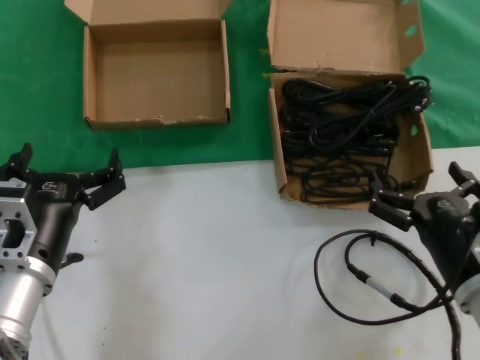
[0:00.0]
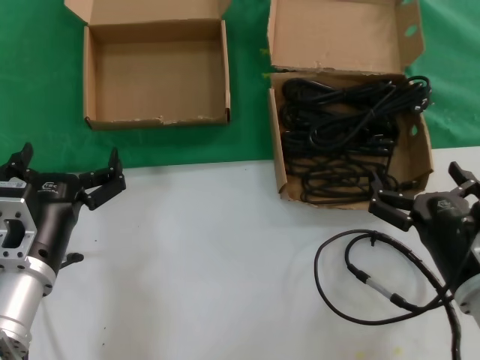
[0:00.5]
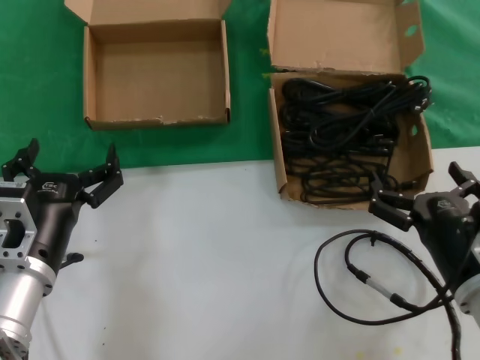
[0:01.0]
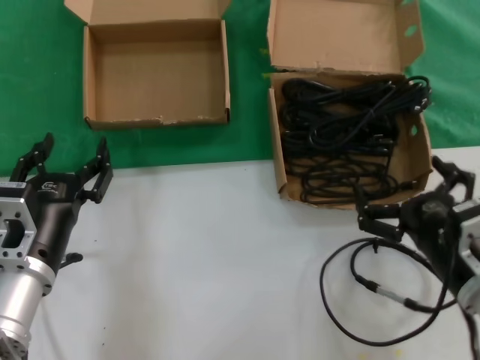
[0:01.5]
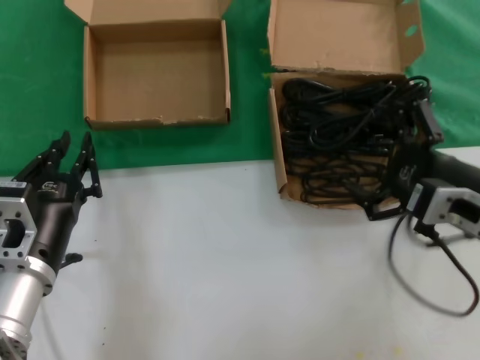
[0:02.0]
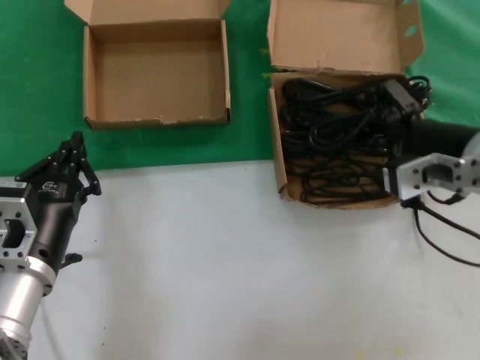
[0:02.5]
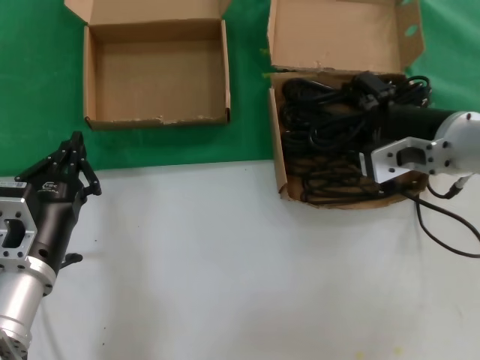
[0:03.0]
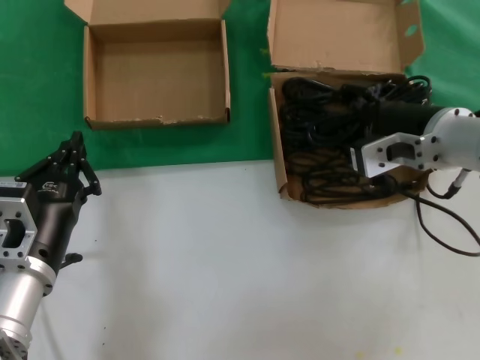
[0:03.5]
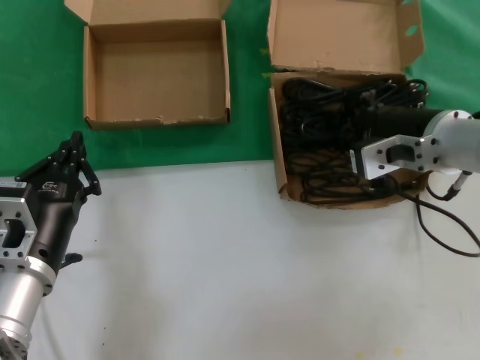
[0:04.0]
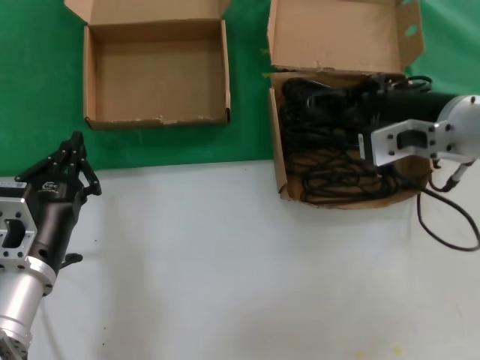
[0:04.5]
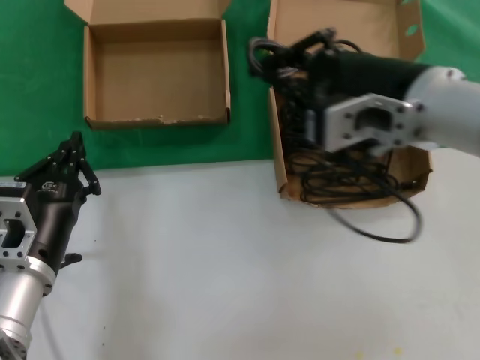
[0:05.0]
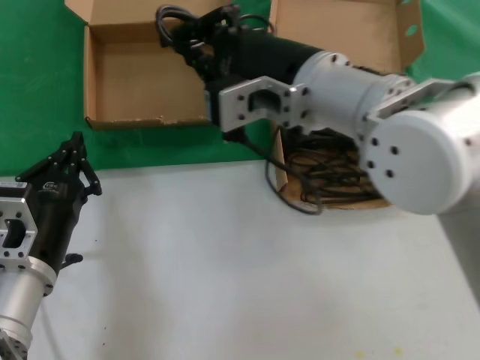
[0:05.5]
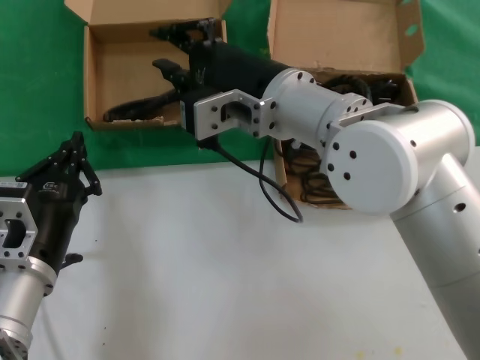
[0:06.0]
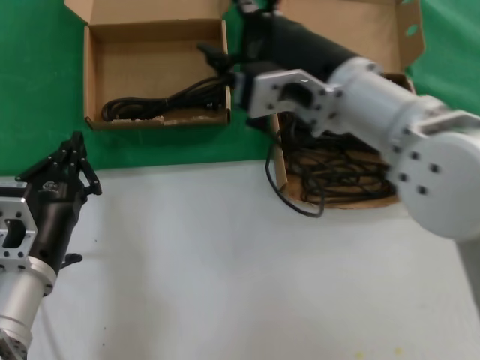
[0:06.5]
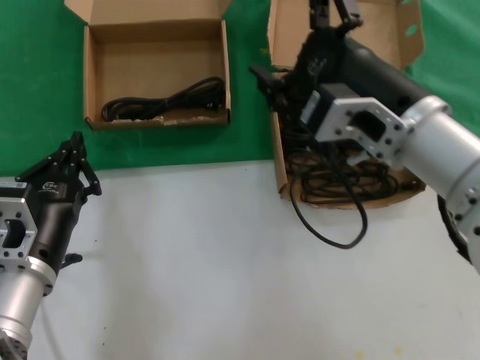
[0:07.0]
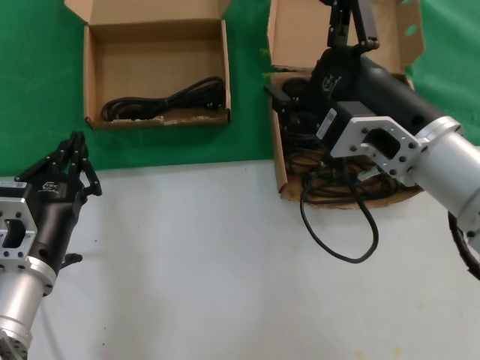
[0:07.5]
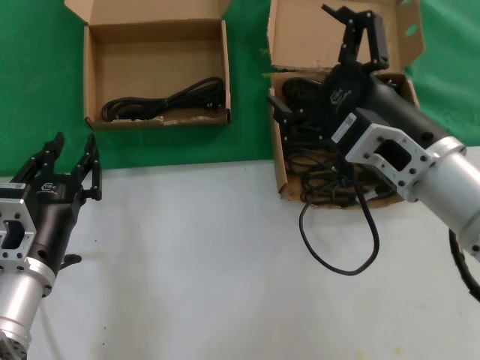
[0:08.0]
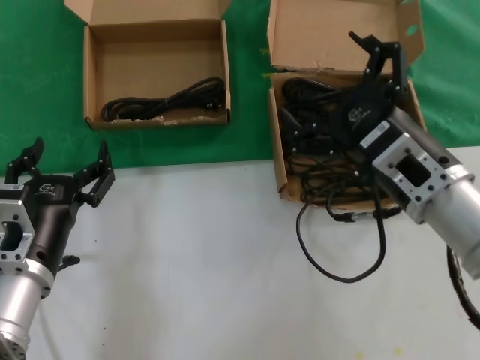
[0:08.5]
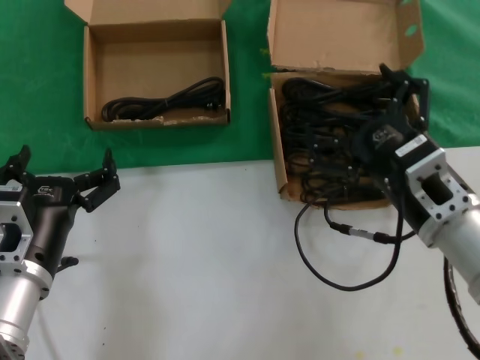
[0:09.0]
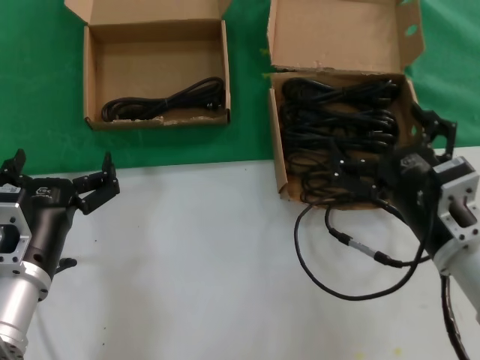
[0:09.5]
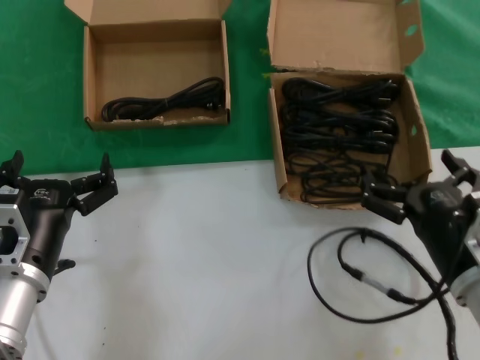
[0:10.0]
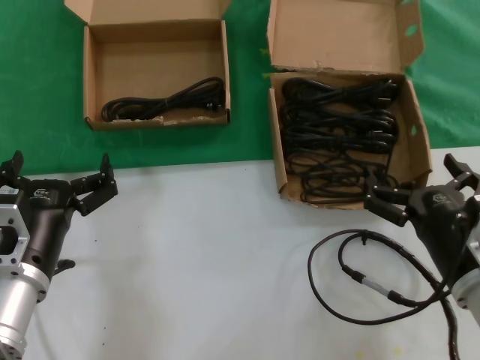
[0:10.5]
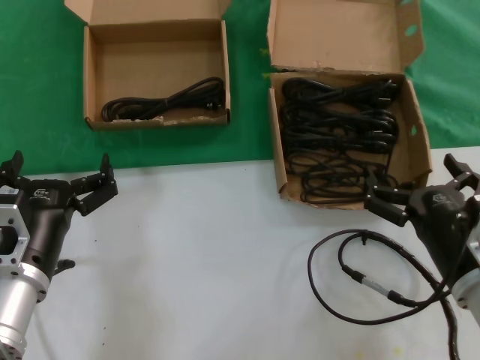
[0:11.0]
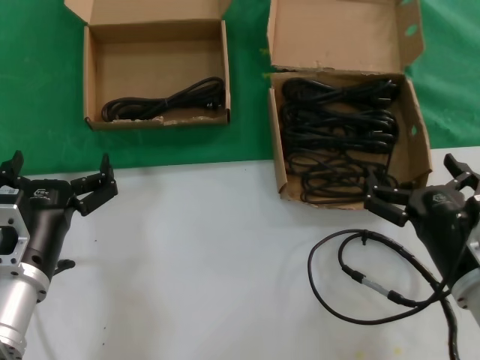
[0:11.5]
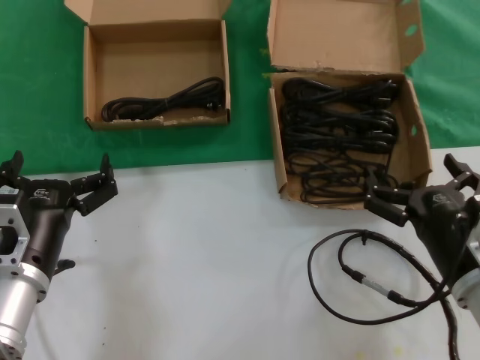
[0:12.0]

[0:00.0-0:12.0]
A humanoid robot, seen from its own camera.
Task of the whole recording: take the parts from the box containing them and put them into an empty box.
Step, 0:00.0 to 0:03.5: Grasp the data cable.
Step, 0:04.0 to 0:05.5: Place the data cable in the another box.
0:00.0 to 0:02.0: The right hand travels upward by roughly 10 cm.
0:02.0 to 0:04.0: The right hand travels forward, upward and to the left by approximately 10 cm.
0:04.0 to 0:06.0: The right hand heads to the left, covering about 15 cm.
0:06.0 to 0:08.0: The right hand shifts roughly 15 cm to the right, backward and downward.
0:08.0 to 0:10.0: The right hand shifts about 15 cm downward and to the right.
0:10.0 to 0:12.0: Neither hand changes place.

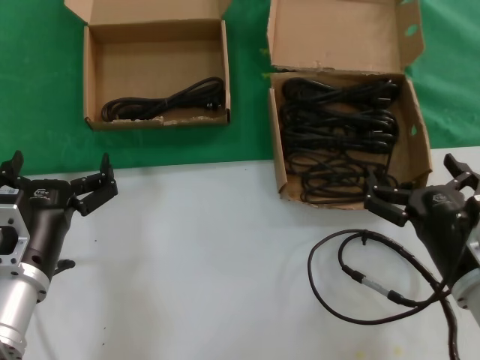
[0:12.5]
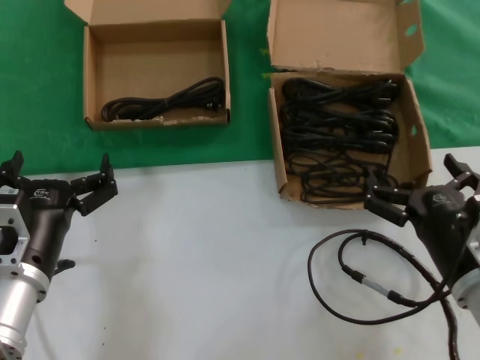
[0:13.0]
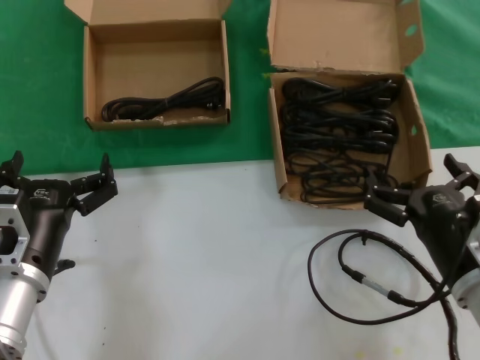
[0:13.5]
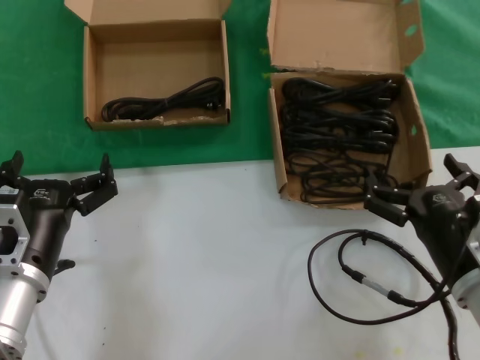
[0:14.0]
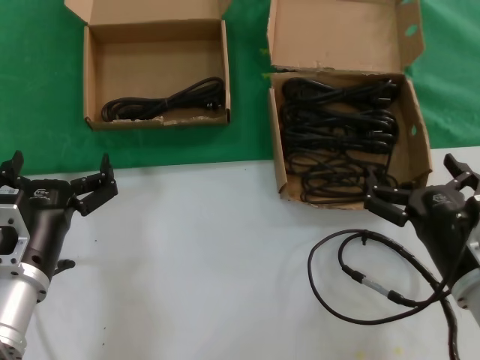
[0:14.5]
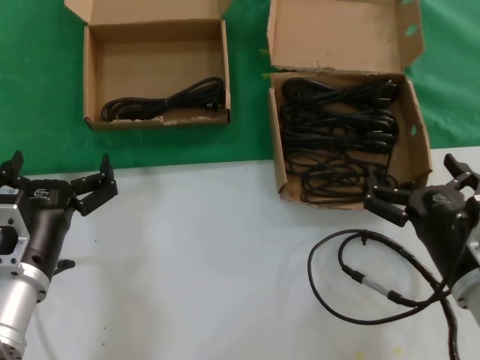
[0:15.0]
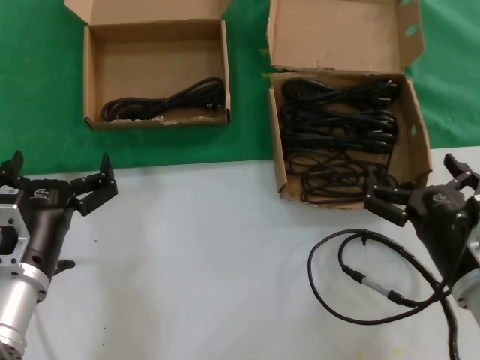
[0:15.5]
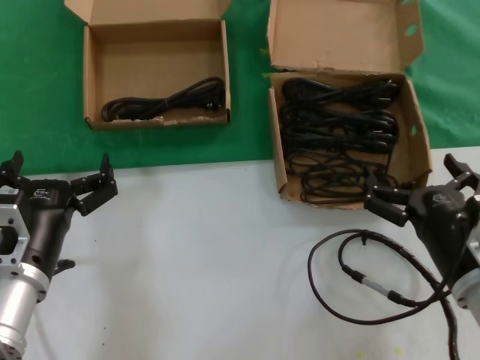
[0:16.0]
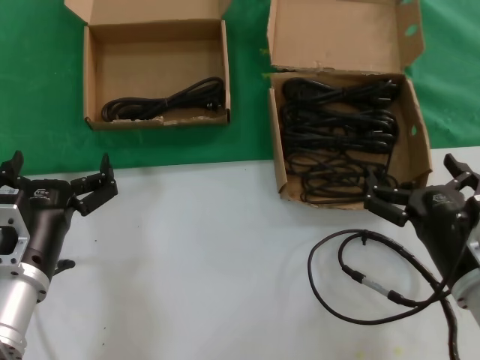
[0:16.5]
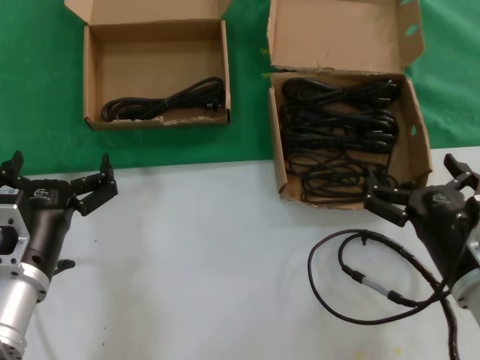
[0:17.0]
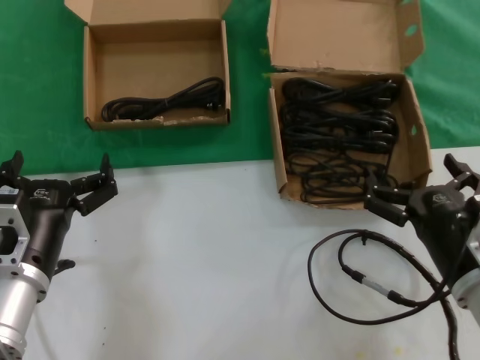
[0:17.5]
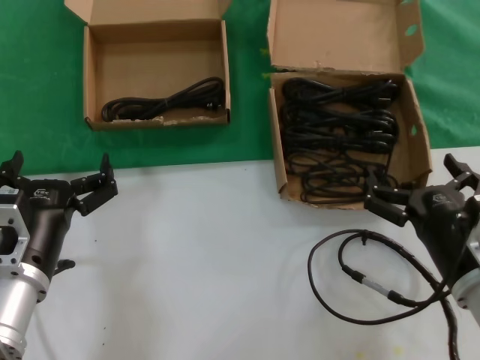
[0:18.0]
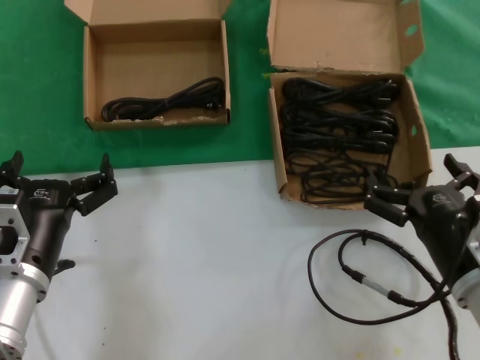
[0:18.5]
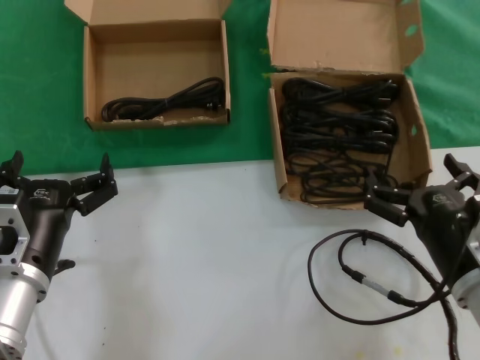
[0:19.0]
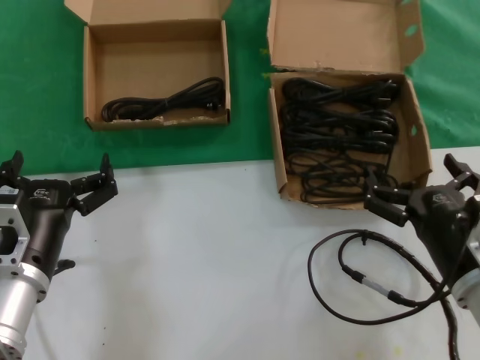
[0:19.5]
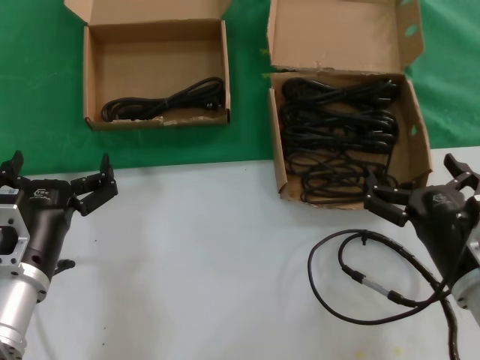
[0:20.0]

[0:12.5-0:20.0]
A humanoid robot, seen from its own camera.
Task of the whole recording: take the parts from the box containing them and put them into an empty box.
0:12.5 to 0:20.0: Neither hand changes place.

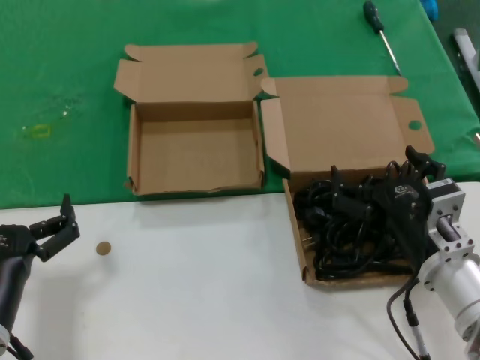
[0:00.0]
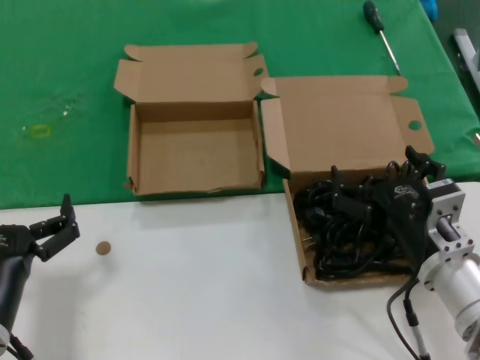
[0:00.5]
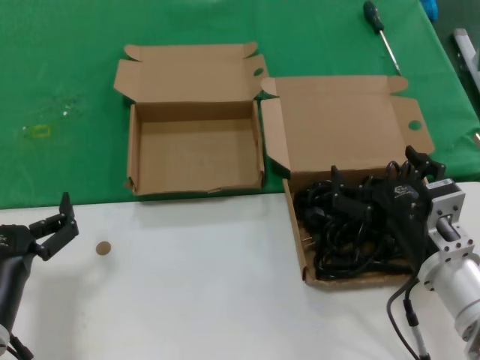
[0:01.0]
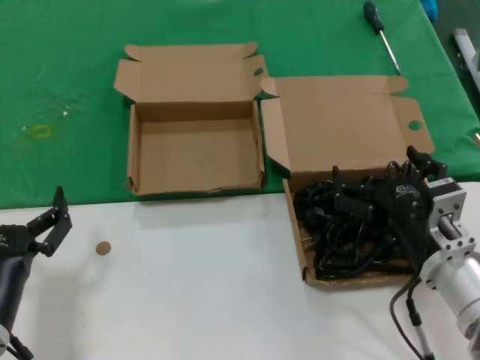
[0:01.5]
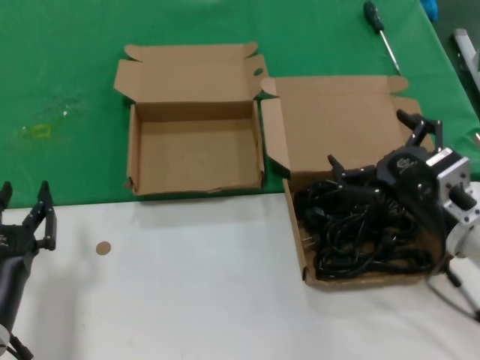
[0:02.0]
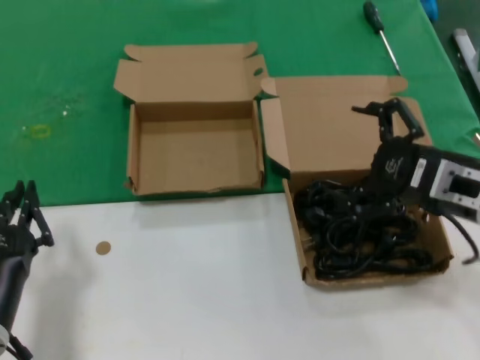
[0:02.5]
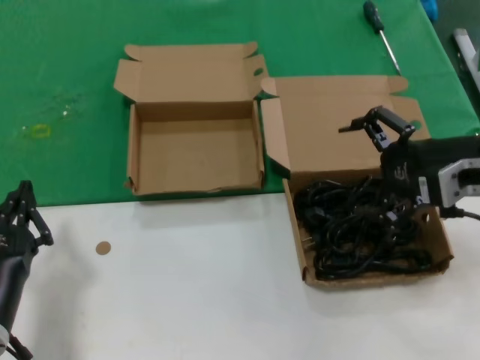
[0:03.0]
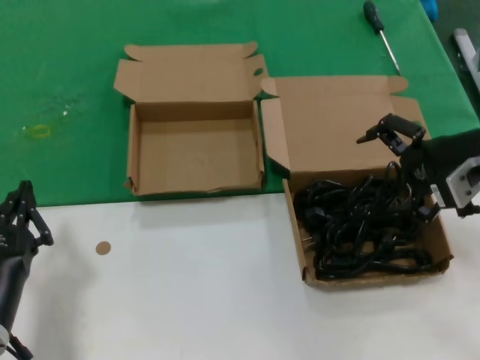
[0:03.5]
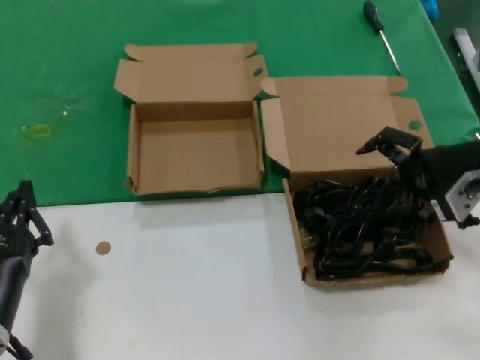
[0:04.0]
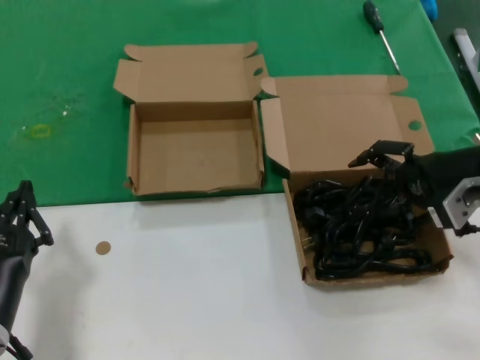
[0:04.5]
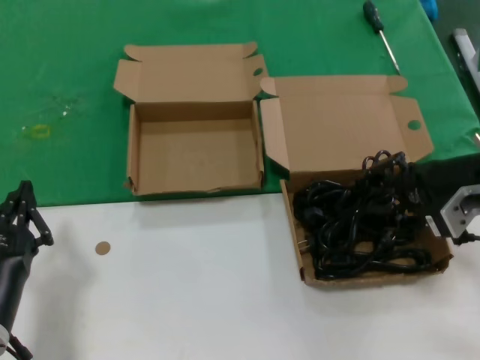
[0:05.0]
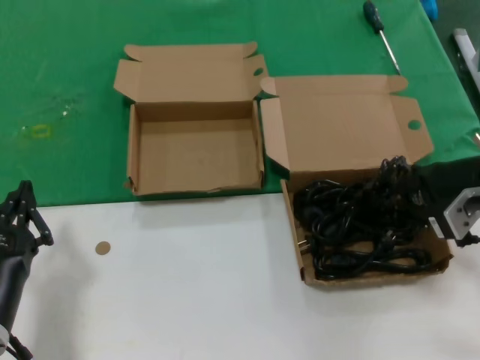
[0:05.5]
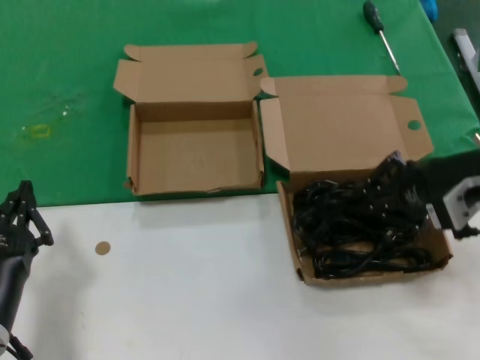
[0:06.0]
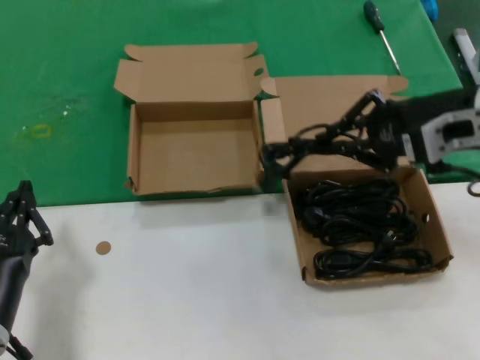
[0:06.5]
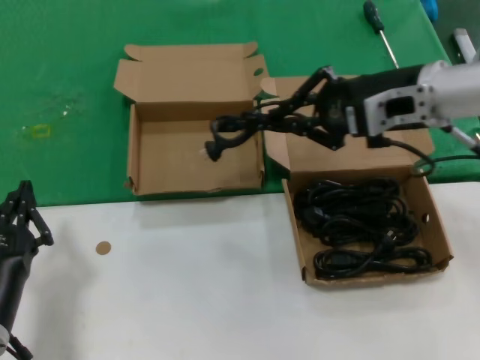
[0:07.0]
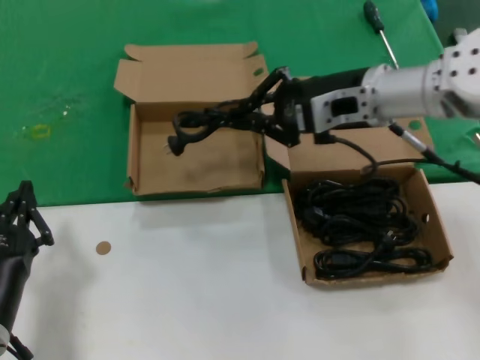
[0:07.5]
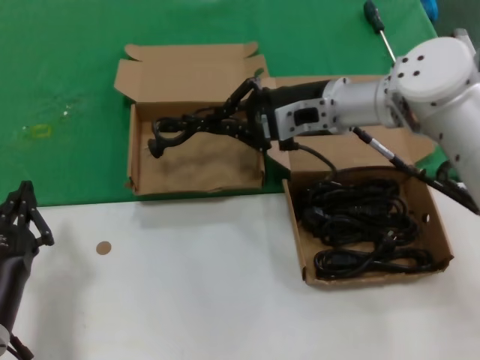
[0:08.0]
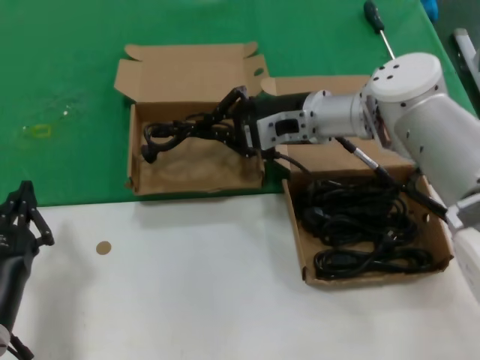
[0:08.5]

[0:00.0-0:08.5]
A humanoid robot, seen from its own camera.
Task of the whole recording: take the parts from the box containing them and put them into an empty box.
Step, 0:00.0 to 0:05.0: Grasp the data cable.
0:00.0 to 0:02.0: The right hand shifts by roughly 5 cm.
0:02.0 to 0:04.0: The right hand shifts roughly 15 cm upward, forward and to the right.
0:04.0 to 0:06.5: The right hand travels upward by about 5 cm.
0:06.5 to 0:08.5: The right hand moves to the left, forward and downward, about 20 cm.
